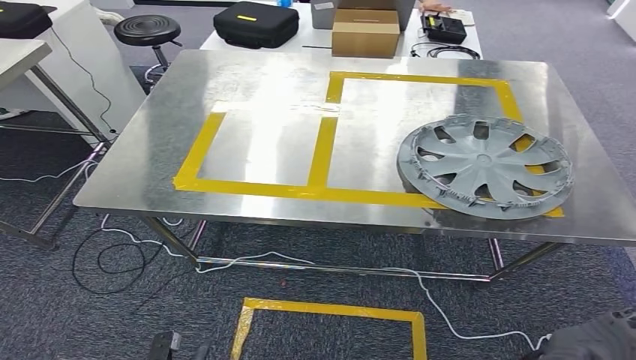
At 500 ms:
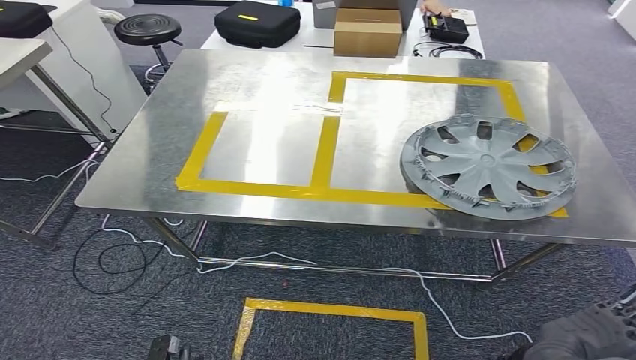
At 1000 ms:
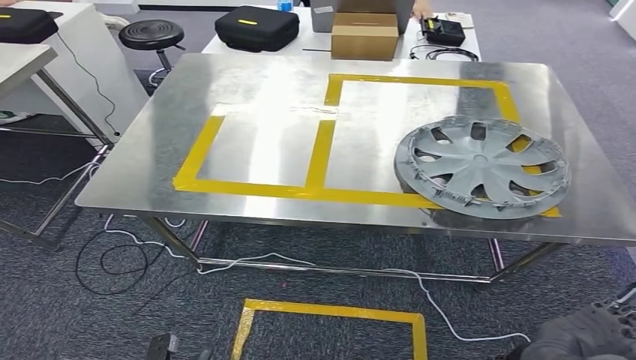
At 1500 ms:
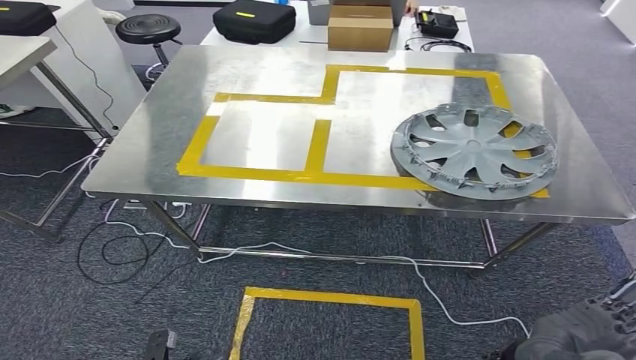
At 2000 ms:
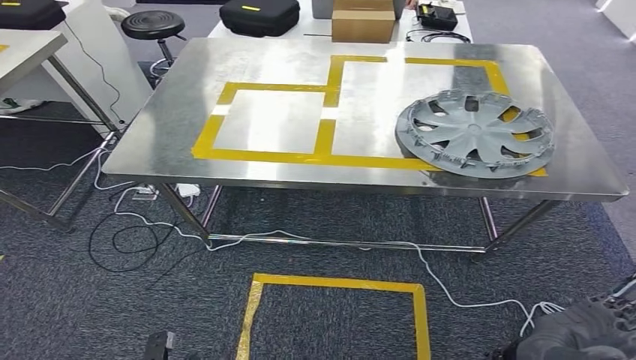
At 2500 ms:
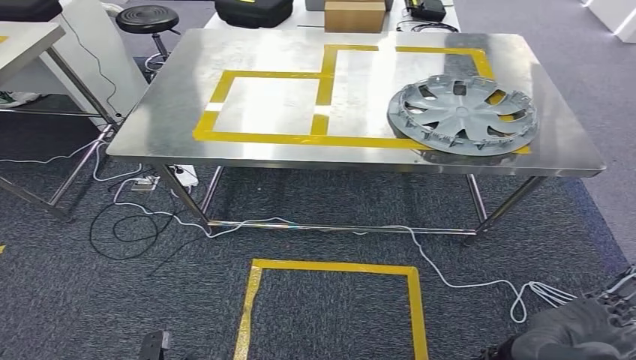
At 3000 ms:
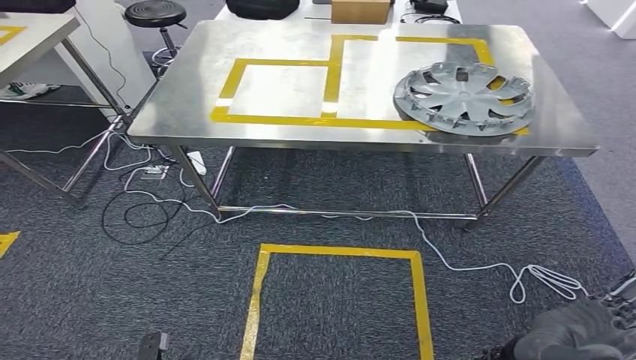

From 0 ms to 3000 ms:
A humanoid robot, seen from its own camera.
Step, from 0 ms to 3000 ms: Return to the initial position at the workbench.
